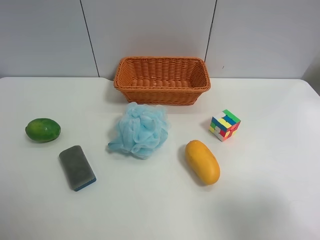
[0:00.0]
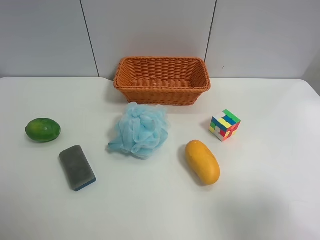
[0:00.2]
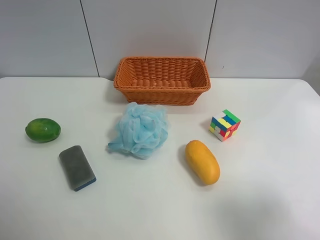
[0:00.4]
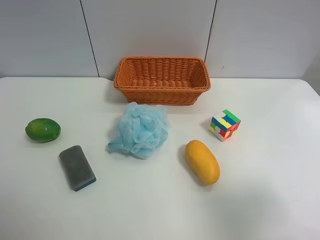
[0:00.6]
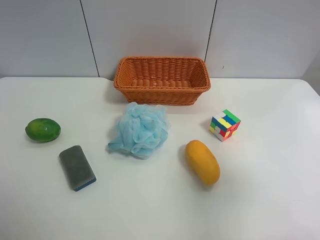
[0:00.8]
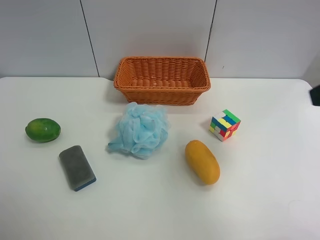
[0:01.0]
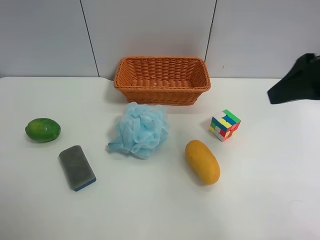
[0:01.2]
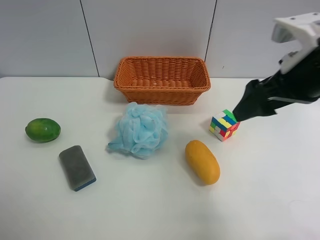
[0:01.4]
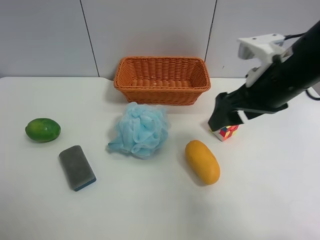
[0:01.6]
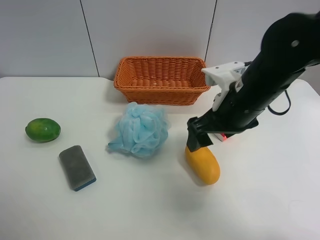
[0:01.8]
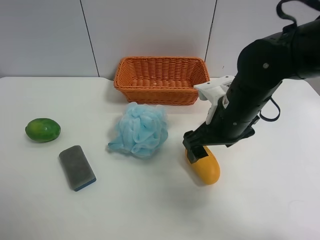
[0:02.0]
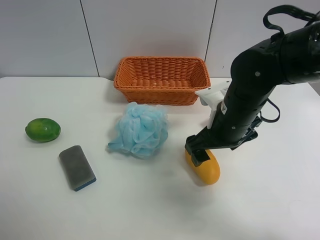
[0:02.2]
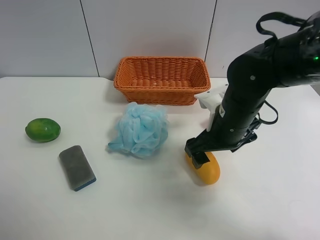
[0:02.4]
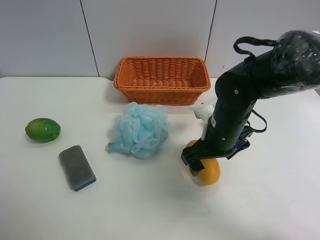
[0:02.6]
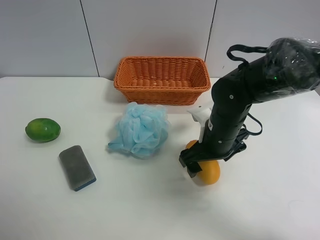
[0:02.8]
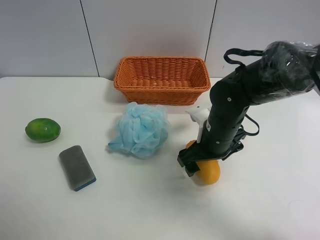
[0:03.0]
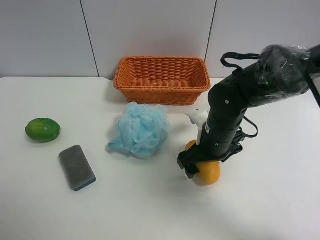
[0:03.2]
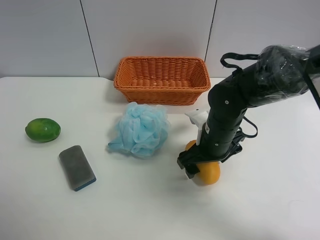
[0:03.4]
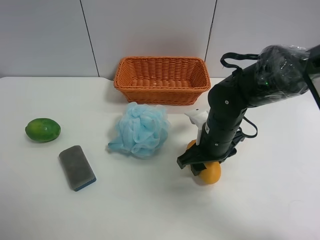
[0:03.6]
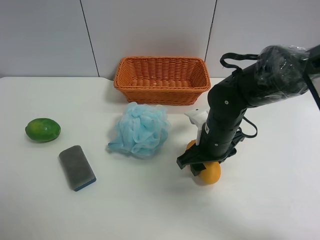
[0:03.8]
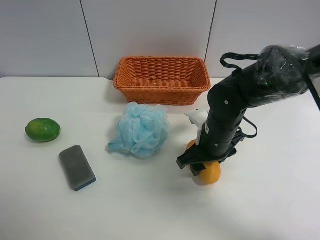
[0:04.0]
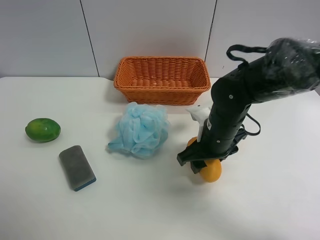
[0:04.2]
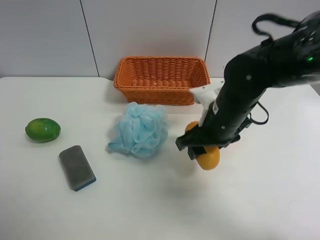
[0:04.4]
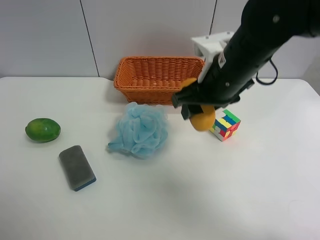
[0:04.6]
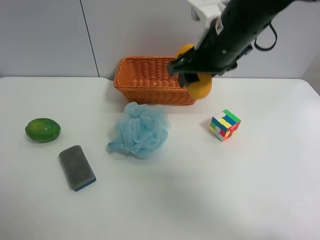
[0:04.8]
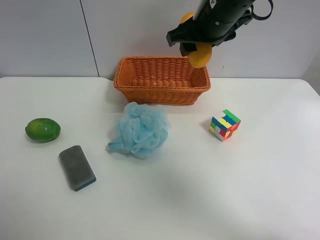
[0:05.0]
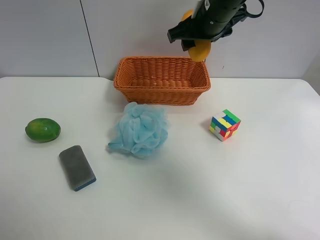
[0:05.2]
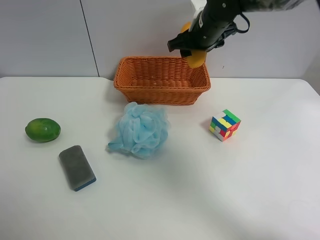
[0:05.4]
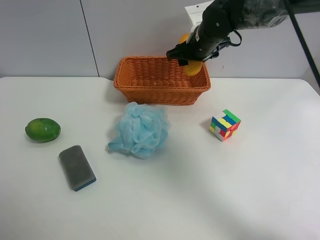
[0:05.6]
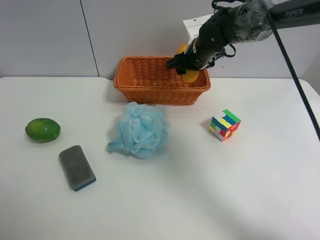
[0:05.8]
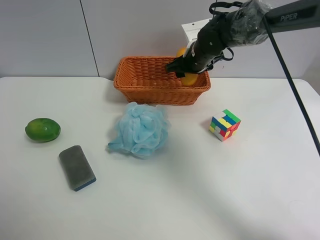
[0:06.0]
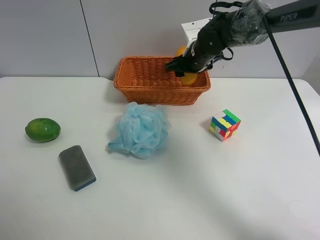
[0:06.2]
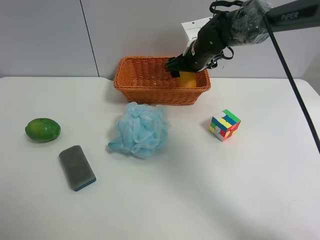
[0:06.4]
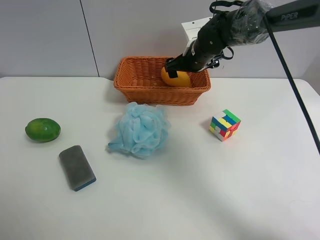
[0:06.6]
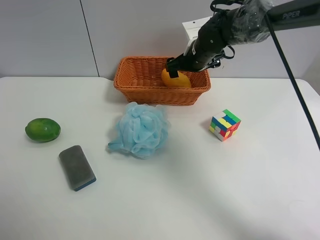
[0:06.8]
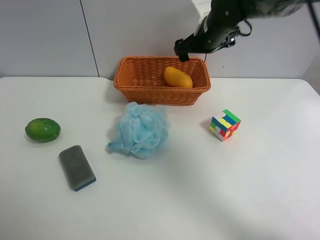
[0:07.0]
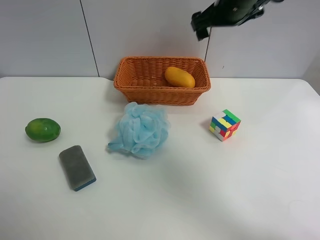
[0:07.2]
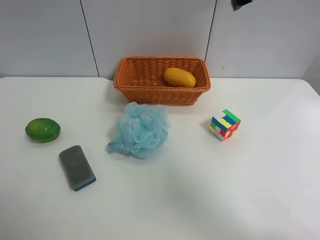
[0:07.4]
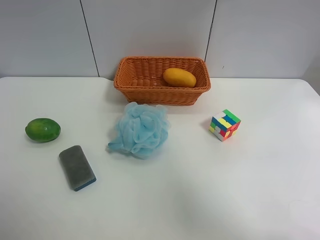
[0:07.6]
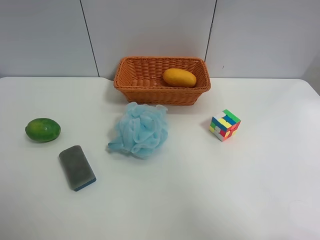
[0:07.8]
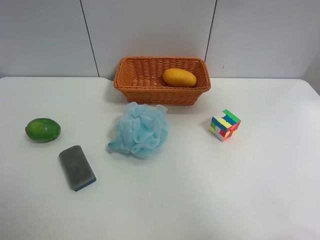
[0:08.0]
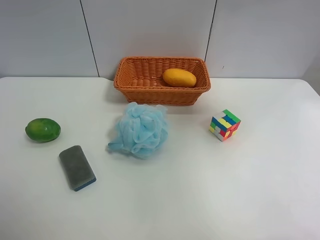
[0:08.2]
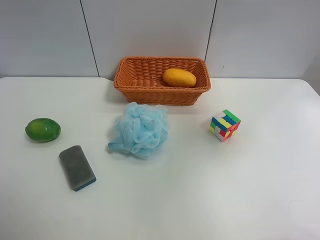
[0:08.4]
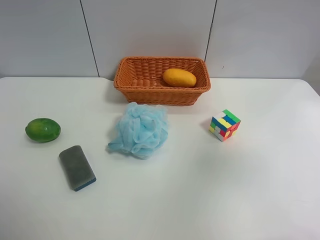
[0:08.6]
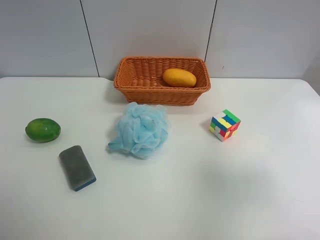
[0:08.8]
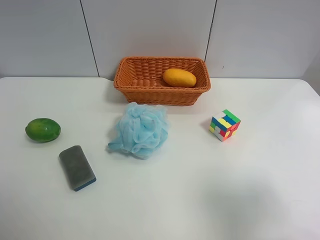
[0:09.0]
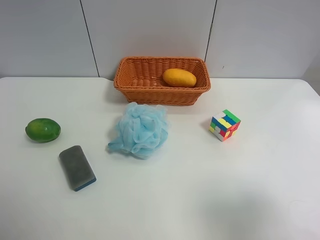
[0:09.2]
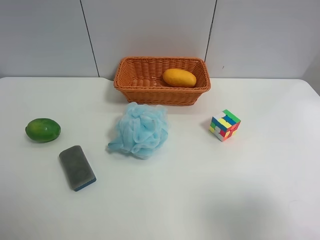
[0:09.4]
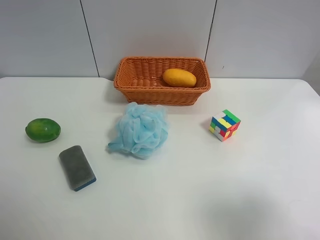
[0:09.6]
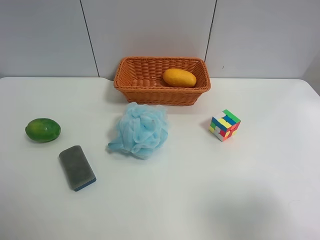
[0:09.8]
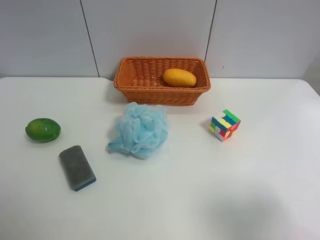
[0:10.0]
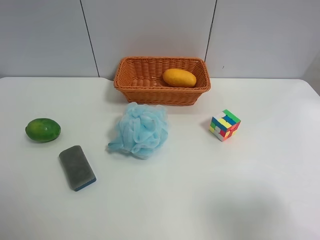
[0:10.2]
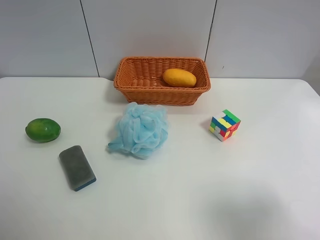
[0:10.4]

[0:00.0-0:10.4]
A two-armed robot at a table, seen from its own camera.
Task of the whole recording: Randomly grab green lemon or mangoes from the table and put them in a basket.
Step, 0:00.0 to 0:03.8: Grasp the mango with the right gripper.
Step, 0:04.0 to 0:07.0: Place the mango into the basket with the right gripper.
0:00.0 to 0:01.4: The right gripper shifts roughly 25 cm forward and to the left.
0:01.4 to 0:03.0: The right gripper moves downward and to the left, approximately 20 cm.
0:03.0 to 0:04.4: The right gripper heads upward, covering about 5 cm, and closes.
0:04.4 to 0:06.0: The right gripper travels forward by about 20 cm.
0:06.0 to 0:07.4: The right gripper shifts about 25 cm upward and backward, and opens.
0:07.4 to 0:09.0: The right gripper goes about 35 cm backward and downward.
